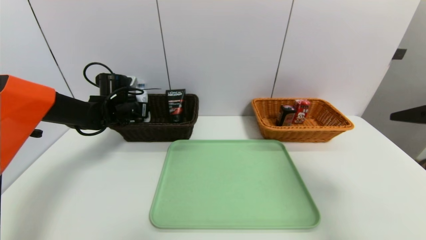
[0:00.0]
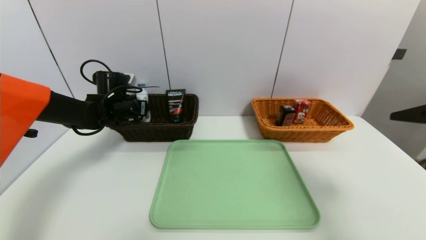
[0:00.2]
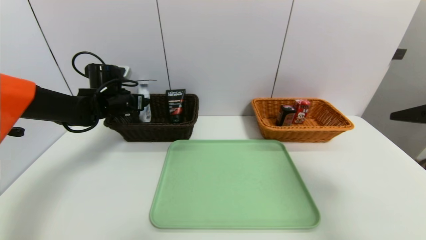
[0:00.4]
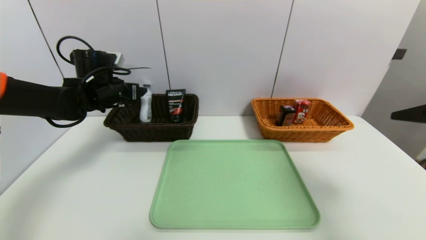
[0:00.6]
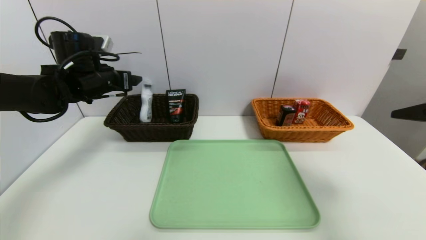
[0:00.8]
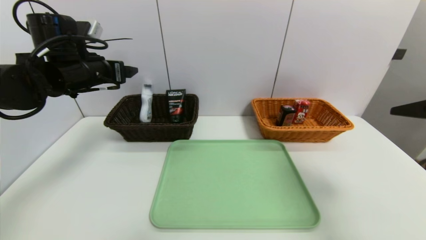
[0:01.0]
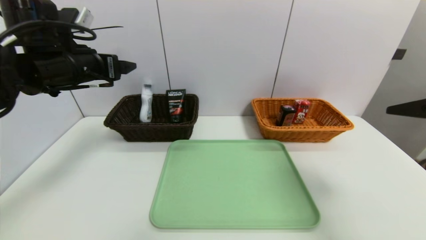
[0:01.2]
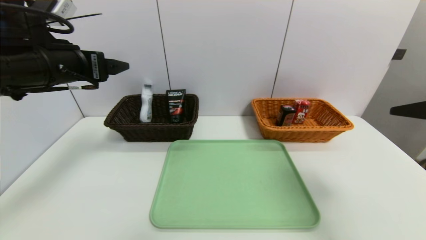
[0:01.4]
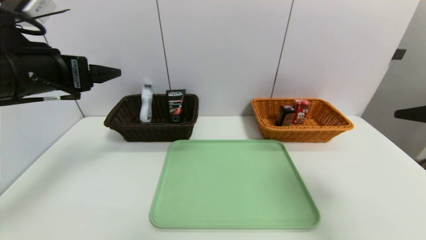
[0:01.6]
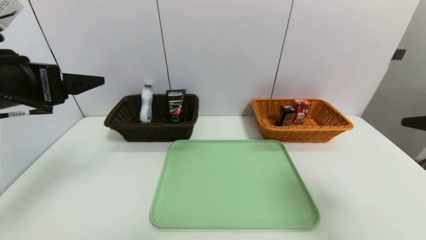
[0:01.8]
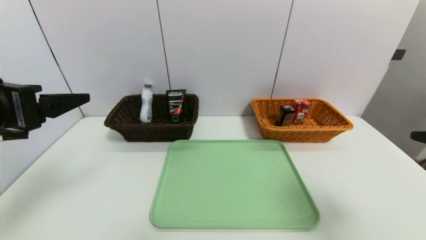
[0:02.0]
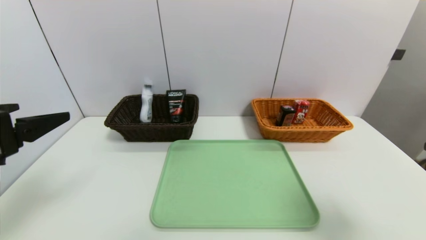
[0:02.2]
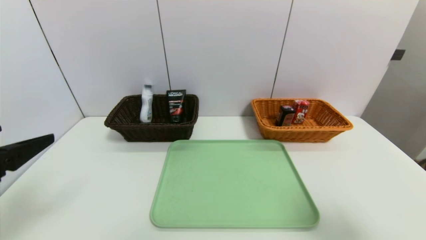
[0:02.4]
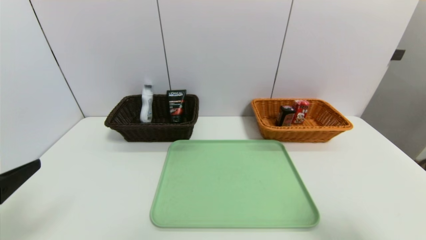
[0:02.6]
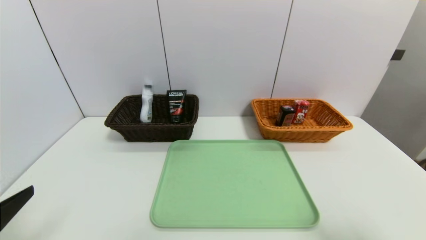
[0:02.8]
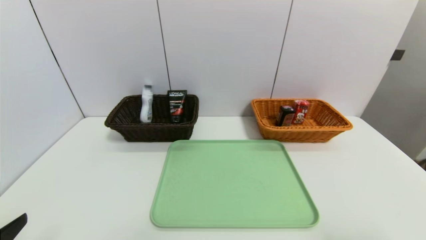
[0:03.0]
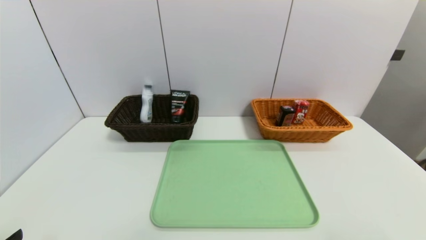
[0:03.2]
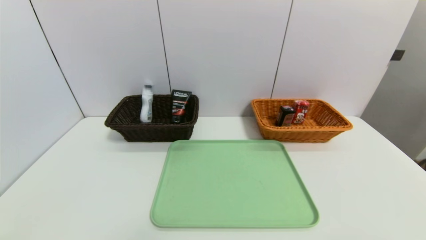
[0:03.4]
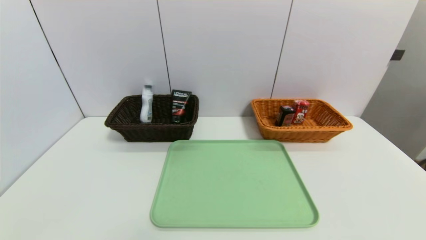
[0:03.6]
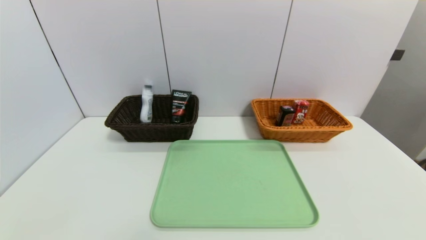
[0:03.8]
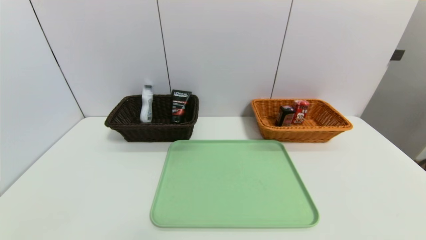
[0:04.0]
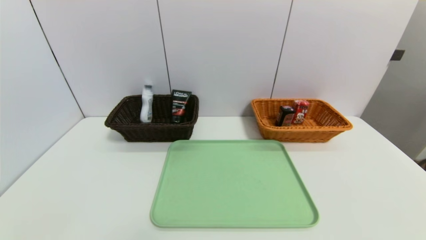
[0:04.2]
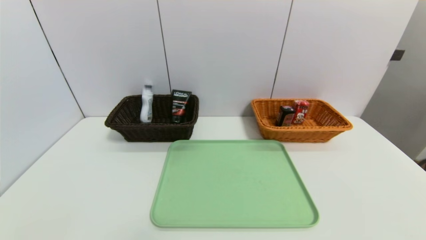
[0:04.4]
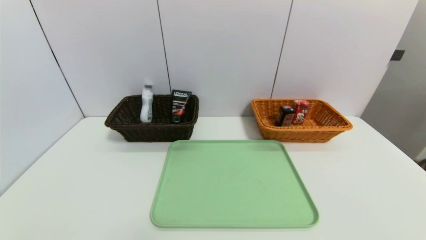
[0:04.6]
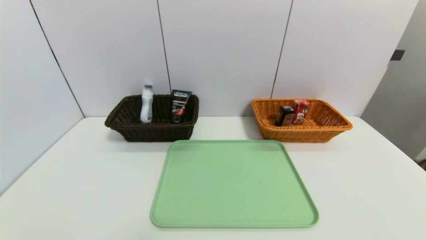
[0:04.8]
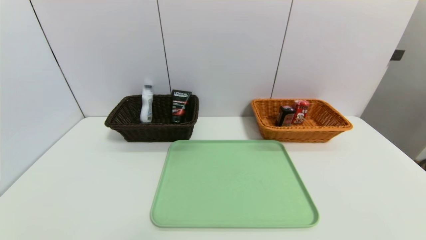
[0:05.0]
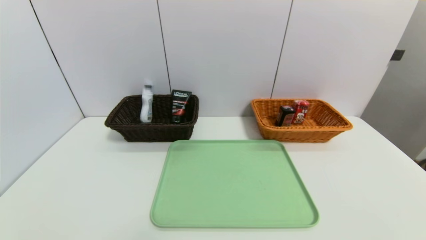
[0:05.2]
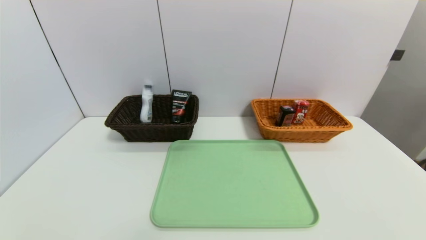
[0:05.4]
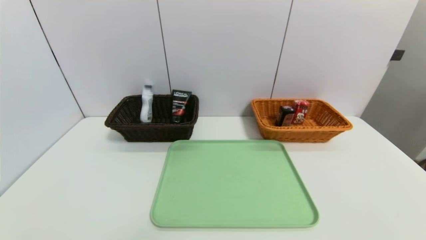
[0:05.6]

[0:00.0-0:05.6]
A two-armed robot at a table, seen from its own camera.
Task of the whole recording: place the food in the right basket with the right gripper, and place the non food items in the left basket with the left gripper.
0:00.0 to 0:01.4: The left gripper shifts about 25 cm backward and upward, and opens.
0:01.4 to 0:02.8: The left gripper heads backward and downward, covering roughly 25 cm. Meanwhile the right gripper moves backward and downward, about 10 cm.
0:02.8 to 0:04.2: The grippers both shift downward and backward by some 10 cm.

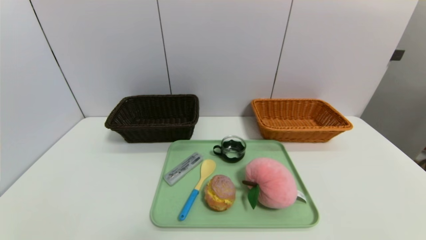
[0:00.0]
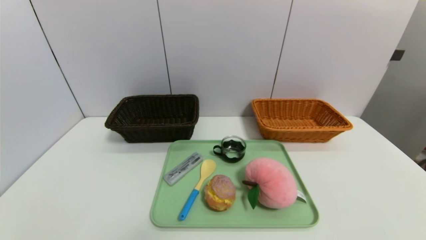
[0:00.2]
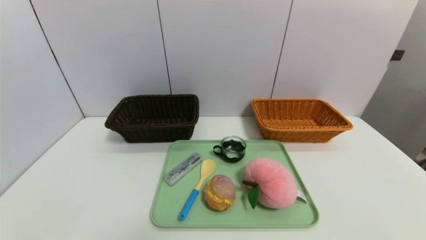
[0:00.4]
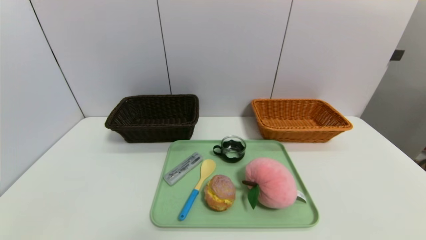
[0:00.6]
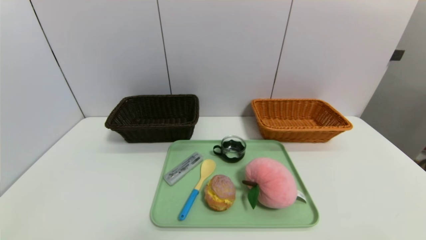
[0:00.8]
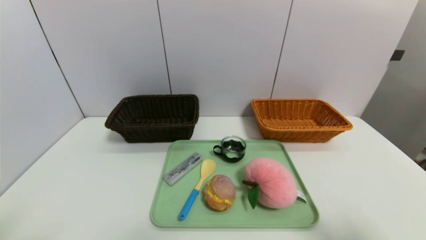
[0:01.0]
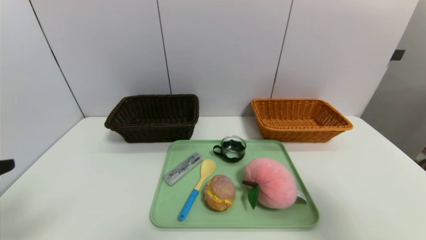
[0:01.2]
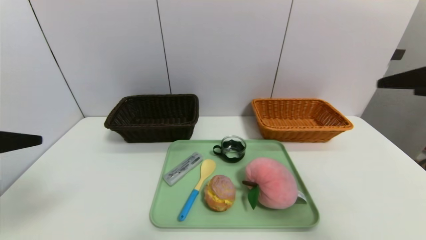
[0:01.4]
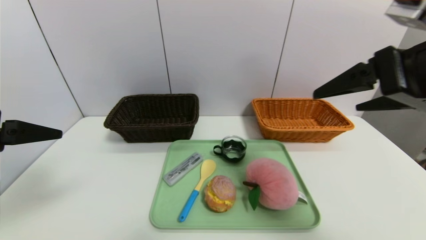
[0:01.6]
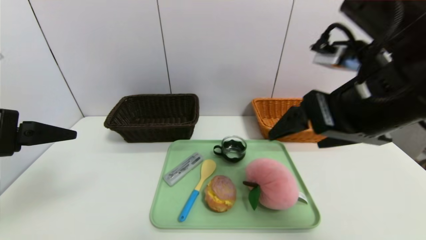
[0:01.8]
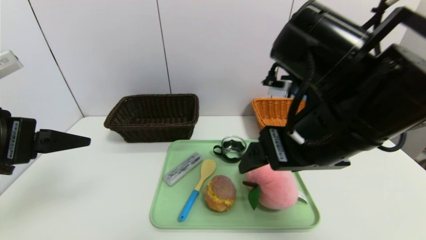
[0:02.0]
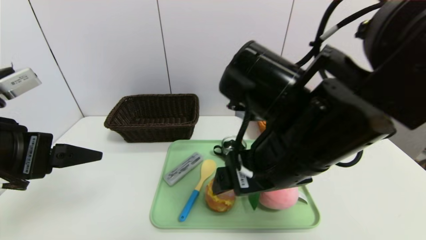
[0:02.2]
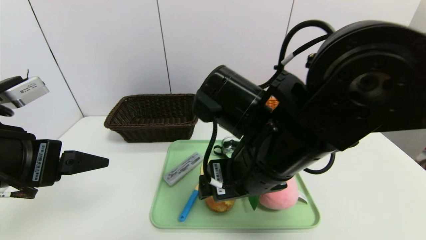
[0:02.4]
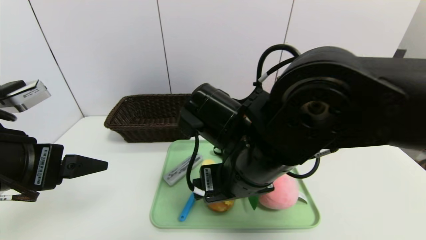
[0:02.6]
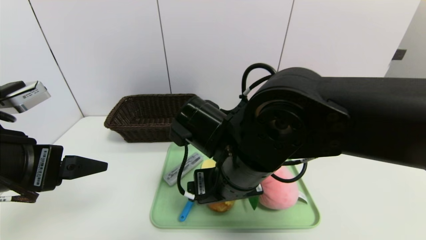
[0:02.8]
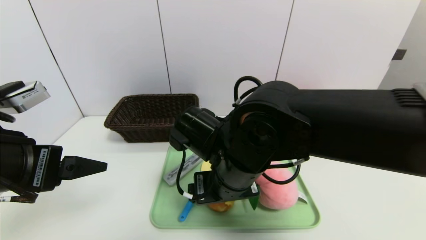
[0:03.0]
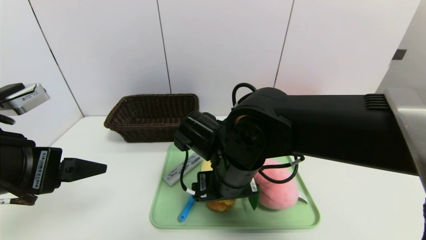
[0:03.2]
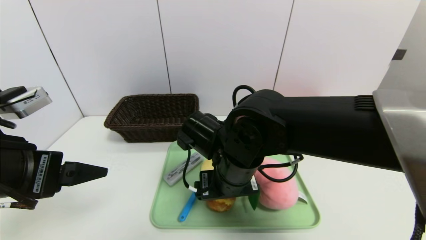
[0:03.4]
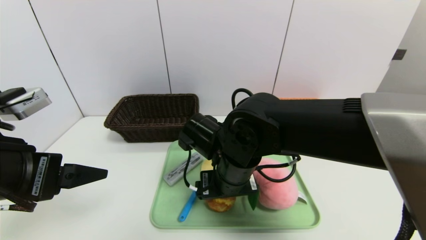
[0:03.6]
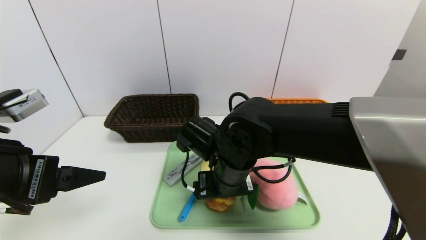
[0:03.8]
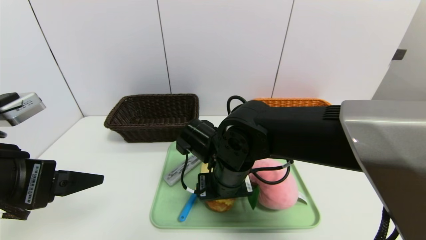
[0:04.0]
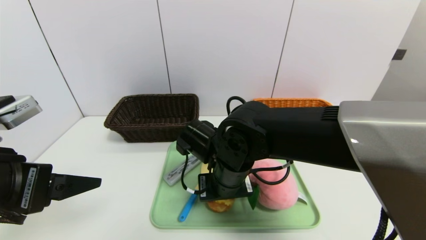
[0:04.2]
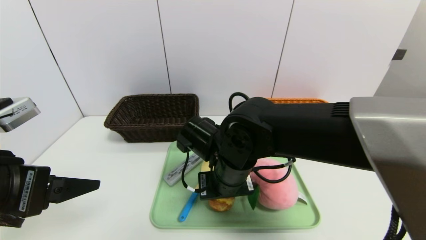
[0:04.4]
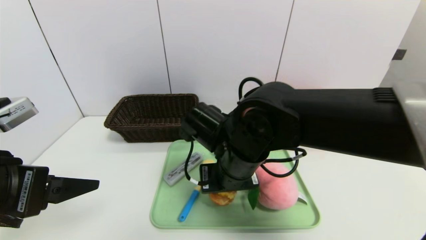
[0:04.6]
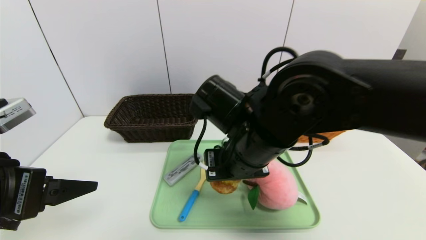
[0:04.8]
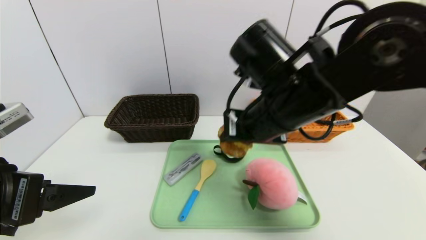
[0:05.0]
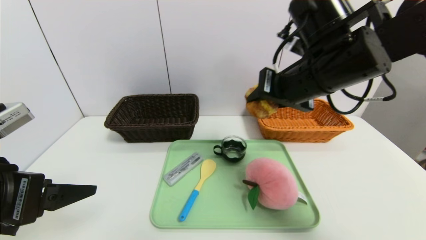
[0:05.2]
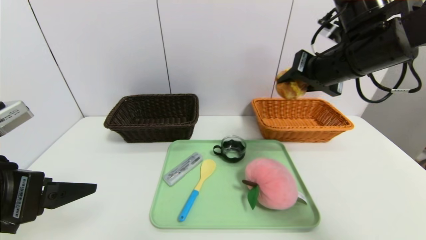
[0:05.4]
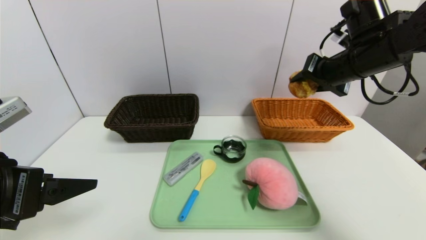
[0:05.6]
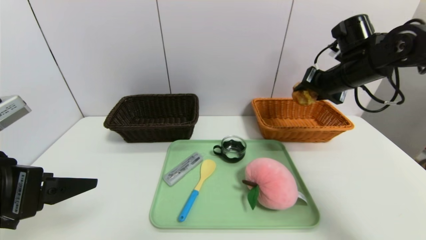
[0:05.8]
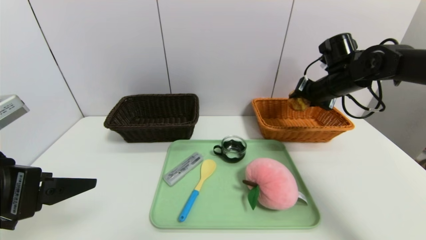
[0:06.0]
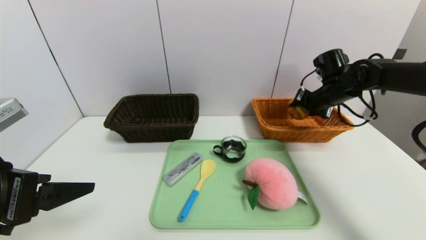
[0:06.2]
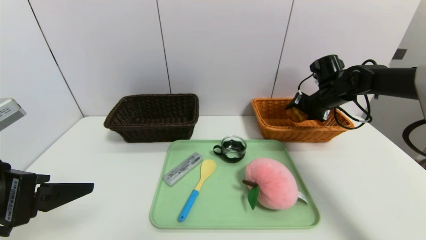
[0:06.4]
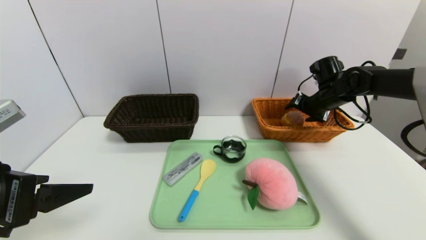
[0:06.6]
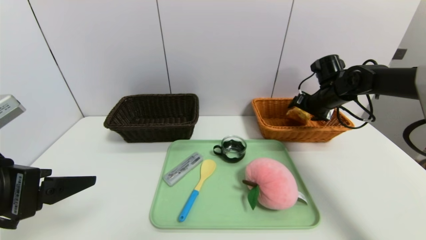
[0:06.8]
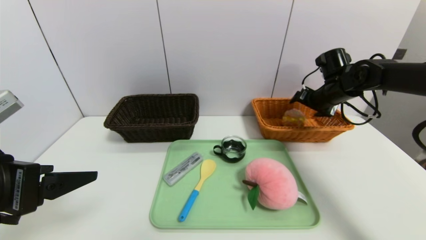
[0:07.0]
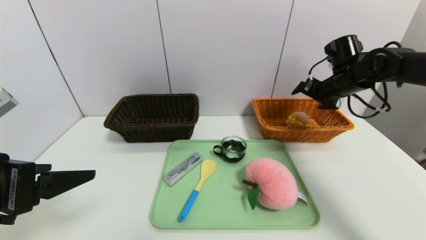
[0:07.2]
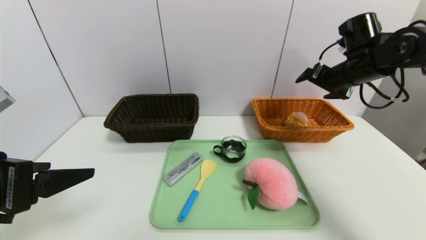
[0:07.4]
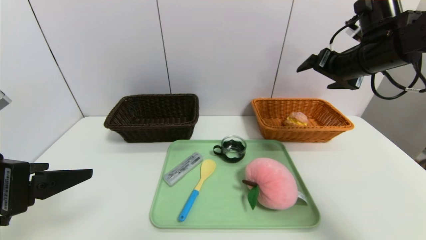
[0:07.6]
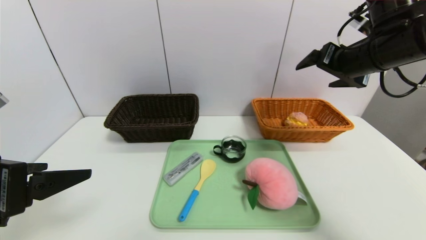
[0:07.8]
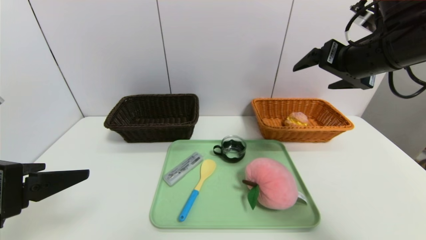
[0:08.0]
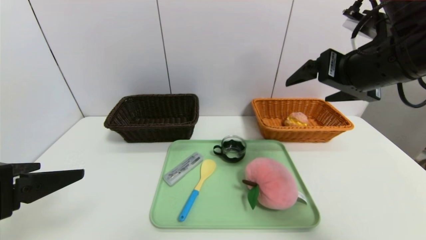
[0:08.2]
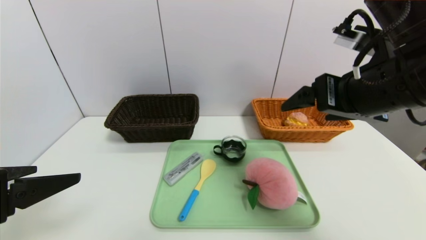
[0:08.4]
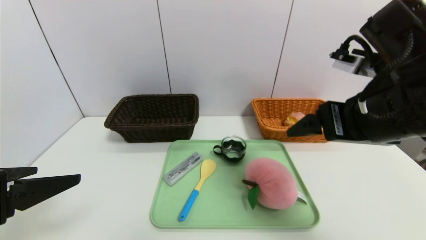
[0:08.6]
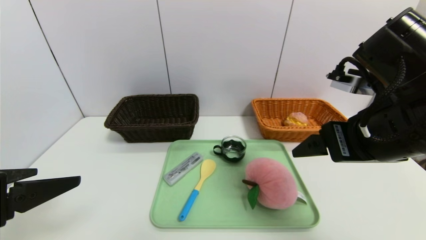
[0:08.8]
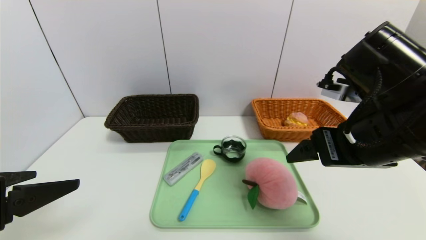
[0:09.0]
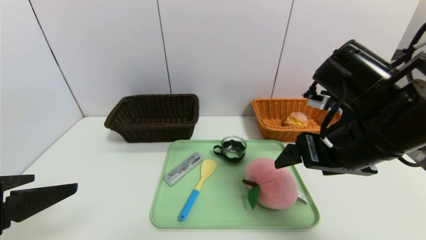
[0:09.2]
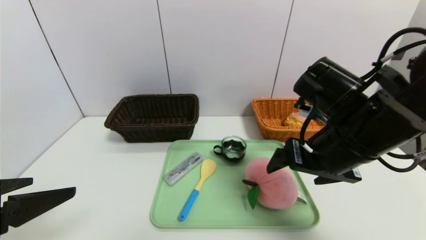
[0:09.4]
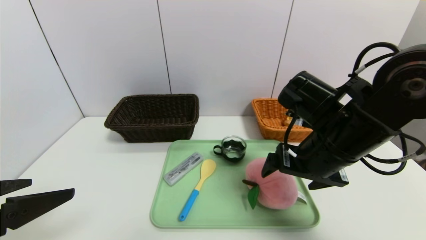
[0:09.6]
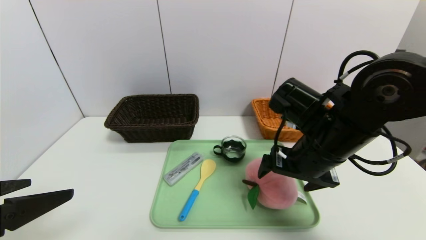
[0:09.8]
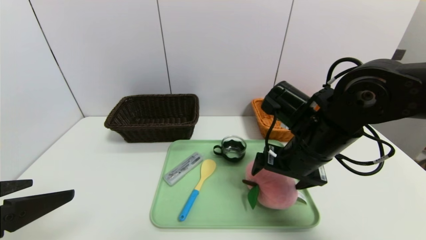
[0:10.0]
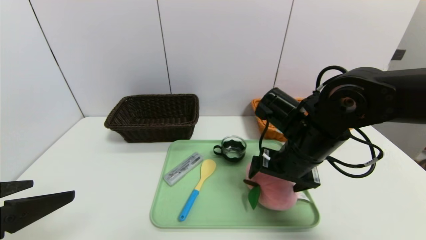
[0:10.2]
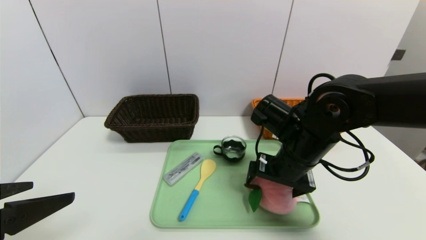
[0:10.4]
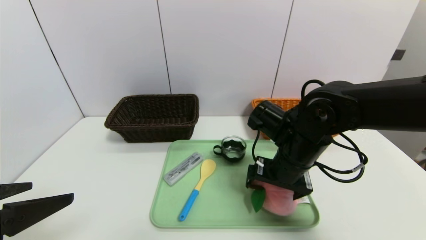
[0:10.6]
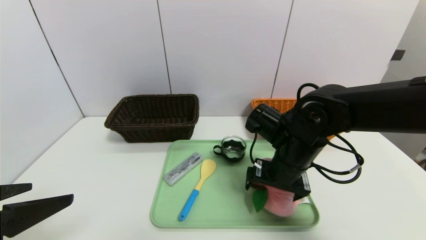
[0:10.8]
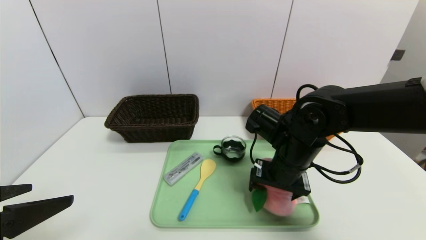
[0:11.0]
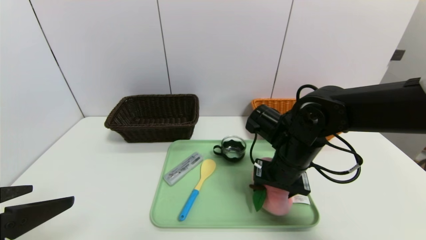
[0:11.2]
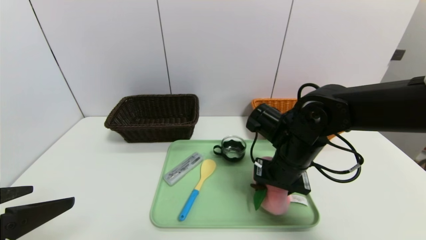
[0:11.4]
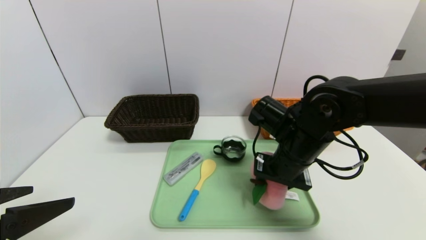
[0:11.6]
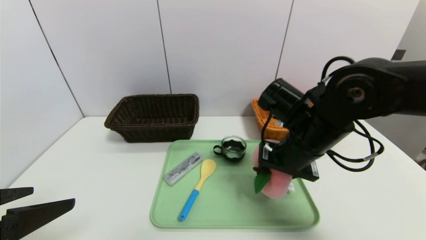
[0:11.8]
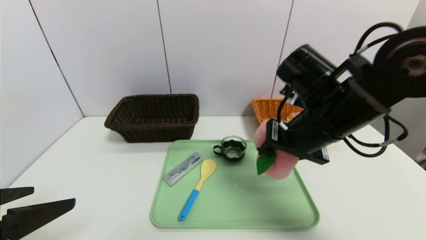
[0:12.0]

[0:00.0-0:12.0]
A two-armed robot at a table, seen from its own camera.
Task of the whole recording: place the food in the right basket with the right gripper, and place the non food items in the left basket with the left gripper.
Step, 0:00.0 to 0:07.0: Grasp the round bread and put it in the right basket.
0:00.0 to 0:01.6: The left gripper shifts roughly 30 cm upward and forward; the right gripper heads upward, forward and to the left, covering some 35 cm.
0:01.6 to 0:03.0: The left gripper ends up approximately 5 cm from where it was. Meanwhile the right gripper is displaced to the left and downward by roughly 25 cm.
0:03.0 to 0:04.4: The right gripper closes its fingers.
0:04.4 to 0:06.0: The right gripper shifts about 30 cm to the right and forward.
0:06.0 to 0:07.6: The right gripper shifts roughly 10 cm upward and backward, and opens.
0:07.6 to 0:09.0: The right gripper heads backward and to the left, covering roughly 20 cm.
0:09.0 to 0:10.4: The right gripper heads downward, forward and to the left, covering about 15 cm.
0:10.4 to 0:12.0: The right gripper goes roughly 10 cm upward, and closes.
